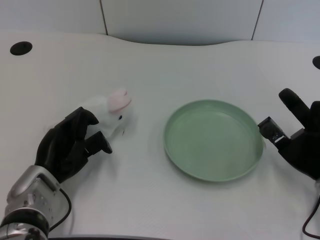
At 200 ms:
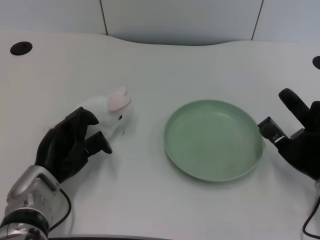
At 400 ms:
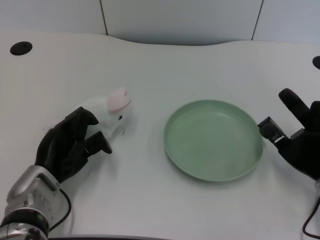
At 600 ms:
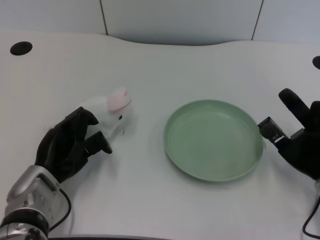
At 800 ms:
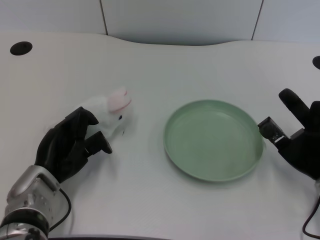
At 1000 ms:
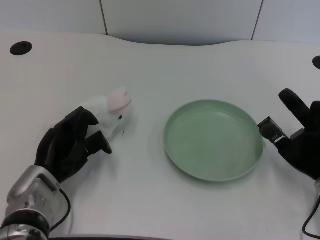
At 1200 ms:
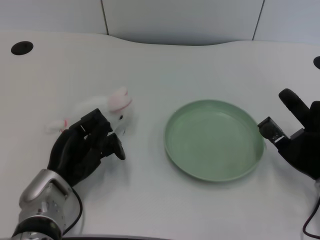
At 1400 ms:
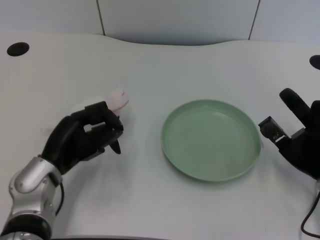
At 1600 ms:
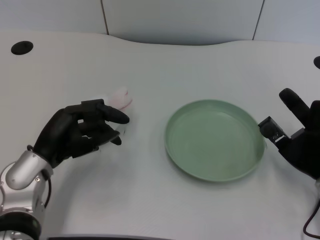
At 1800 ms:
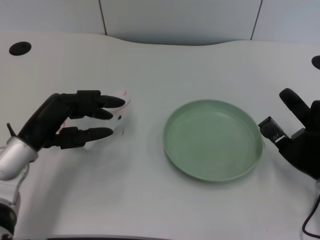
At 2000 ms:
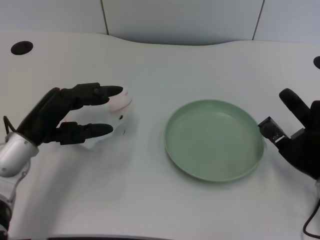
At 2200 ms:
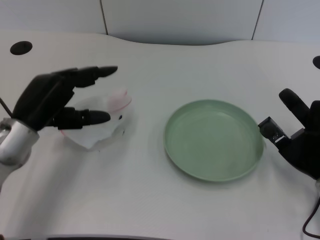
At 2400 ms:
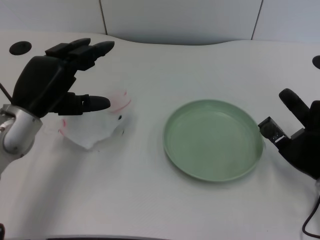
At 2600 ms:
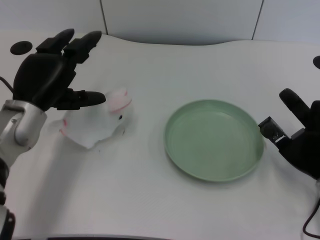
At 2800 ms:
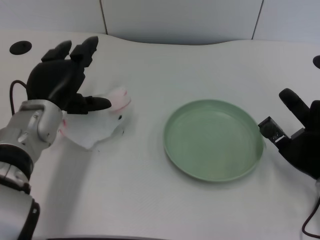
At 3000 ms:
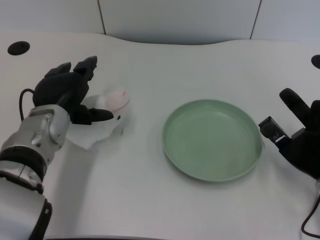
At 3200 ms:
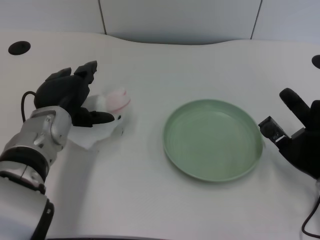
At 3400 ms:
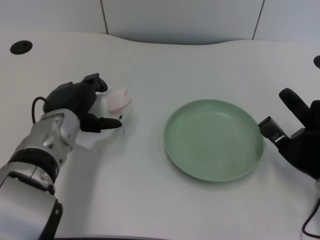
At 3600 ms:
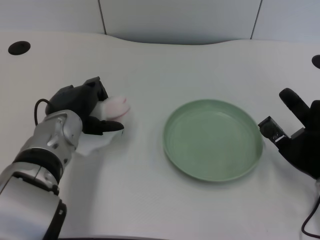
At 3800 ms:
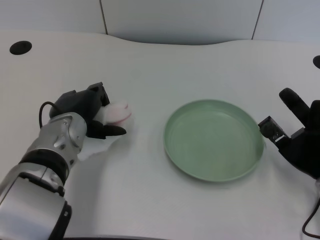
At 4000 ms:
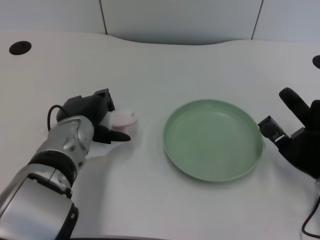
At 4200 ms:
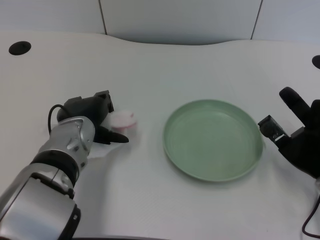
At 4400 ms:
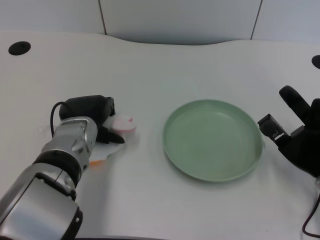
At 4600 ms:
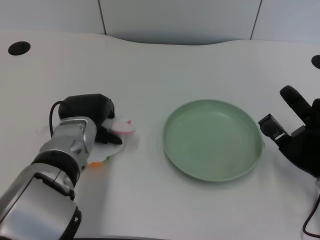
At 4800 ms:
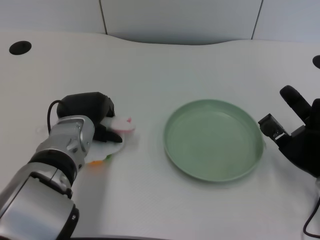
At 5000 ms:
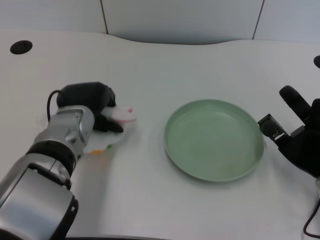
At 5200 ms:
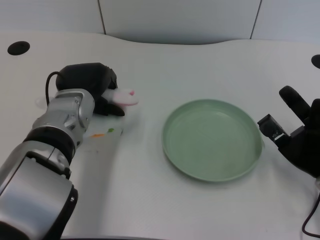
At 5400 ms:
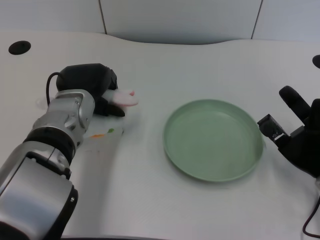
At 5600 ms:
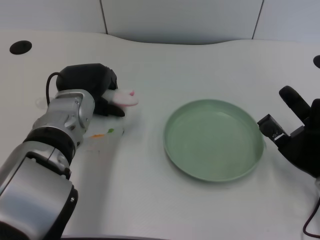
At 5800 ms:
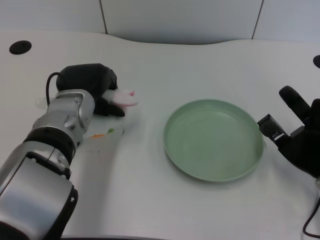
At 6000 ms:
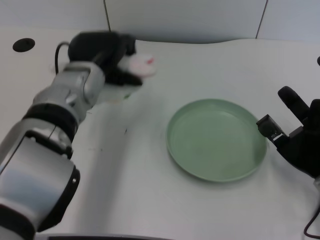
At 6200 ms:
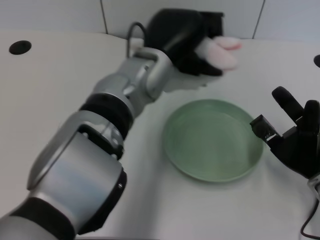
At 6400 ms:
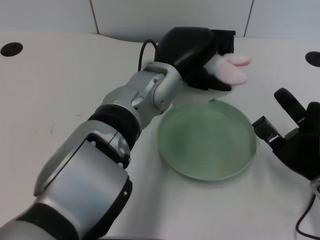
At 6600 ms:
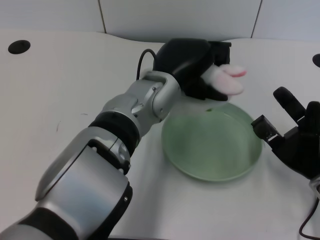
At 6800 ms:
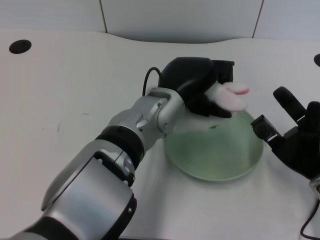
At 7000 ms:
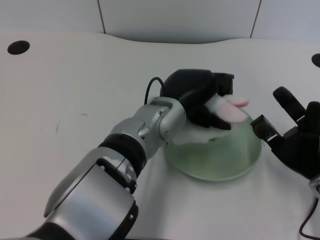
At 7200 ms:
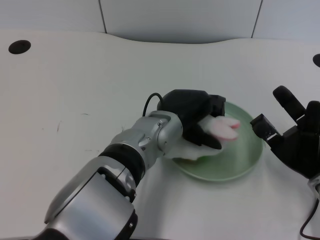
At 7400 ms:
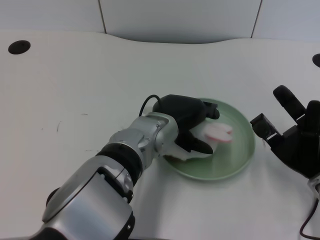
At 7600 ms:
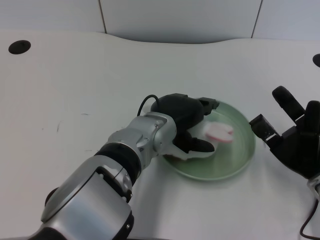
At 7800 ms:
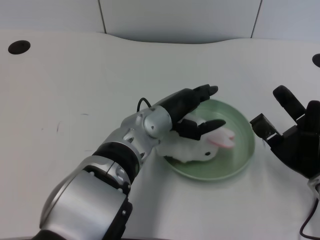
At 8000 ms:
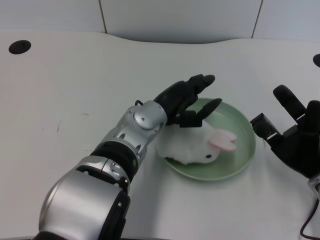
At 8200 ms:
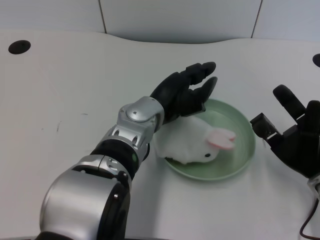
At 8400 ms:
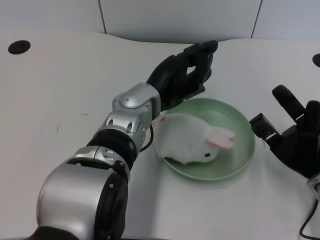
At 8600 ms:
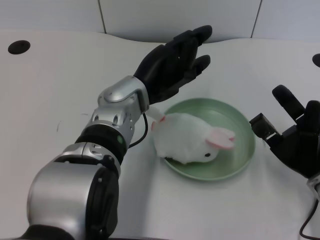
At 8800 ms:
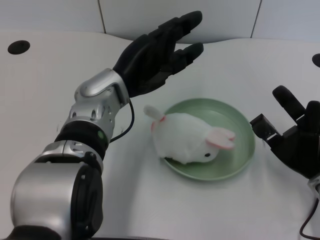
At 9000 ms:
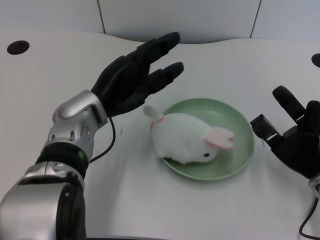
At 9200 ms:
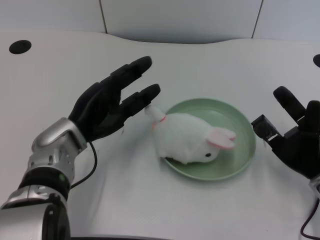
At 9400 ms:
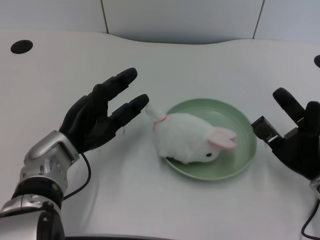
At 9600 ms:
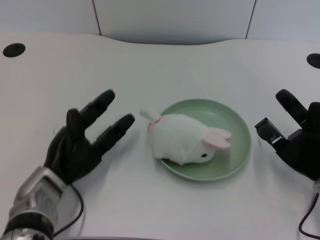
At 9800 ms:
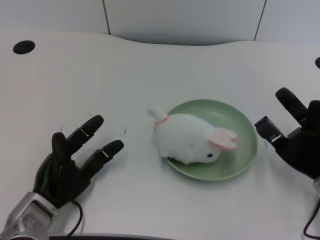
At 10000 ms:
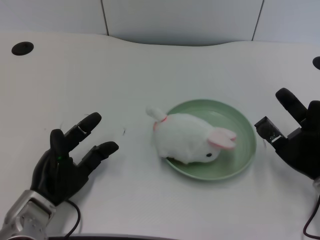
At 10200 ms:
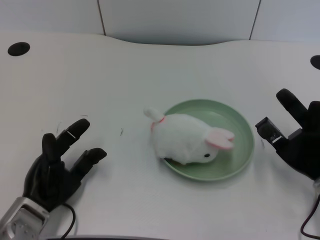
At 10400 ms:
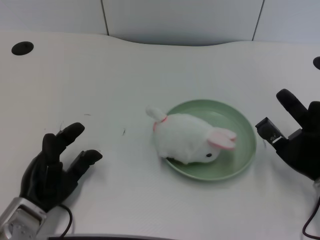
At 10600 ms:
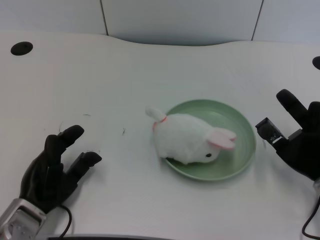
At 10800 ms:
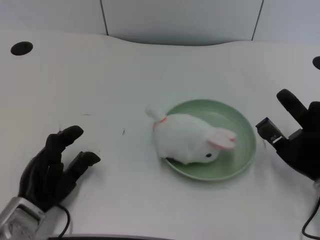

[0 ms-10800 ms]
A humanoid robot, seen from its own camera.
Task of the whole recording: pick up the rabbit doll from the table and place it on the plate.
Step, 1400 ms to 4800 ms: Grasp the rabbit doll with the left gripper.
Step, 5000 ms to 7800 ms: Place the rabbit doll into the plate with the left gripper.
1600 ms to 3000 ms: The left hand goes roughly 5 cm forward.
3000 ms to 4600 ms: The hands move only a little.
4600 ms to 6200 ms: The left hand shifts some 15 cm to the right and upward.
6200 ms to 7800 ms: The left hand travels downward by roughly 5 cm.
7800 ms to 9200 ms: The left hand goes approximately 15 cm to the left.
9200 ms to 10800 ms: The left hand is displaced backward, downward and to the left by some 15 cm.

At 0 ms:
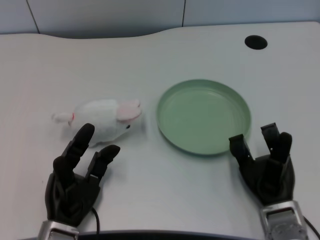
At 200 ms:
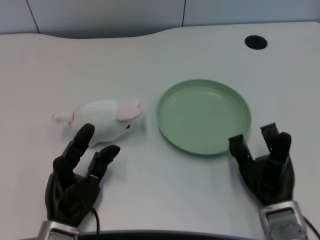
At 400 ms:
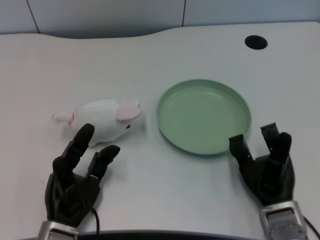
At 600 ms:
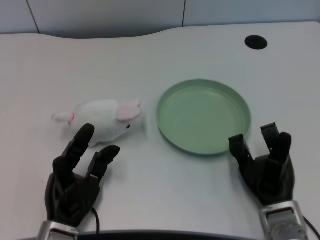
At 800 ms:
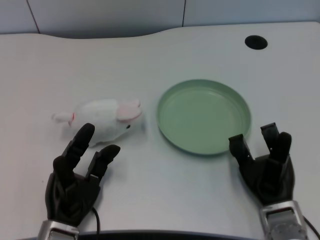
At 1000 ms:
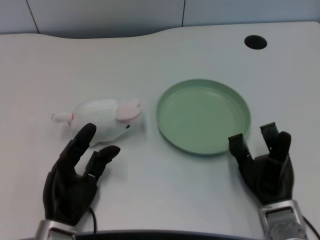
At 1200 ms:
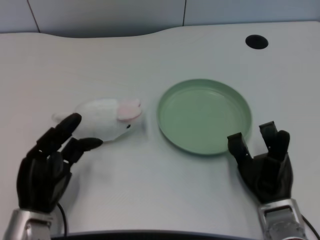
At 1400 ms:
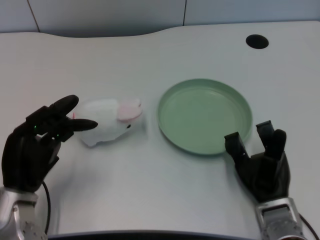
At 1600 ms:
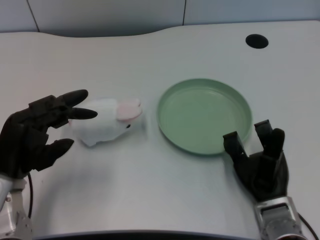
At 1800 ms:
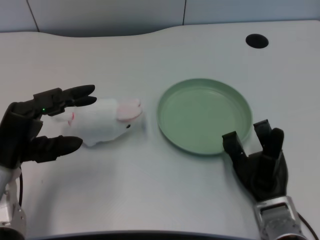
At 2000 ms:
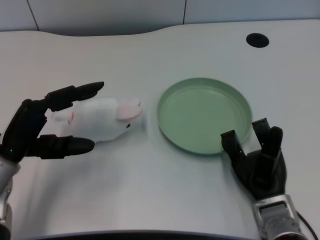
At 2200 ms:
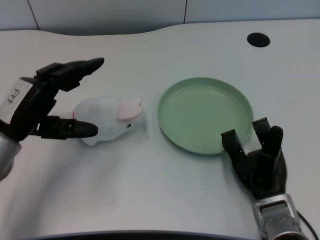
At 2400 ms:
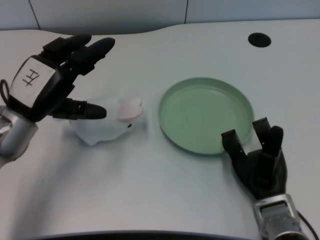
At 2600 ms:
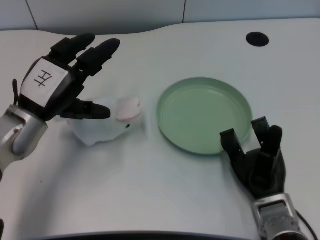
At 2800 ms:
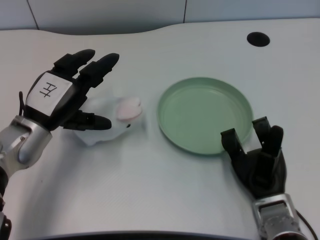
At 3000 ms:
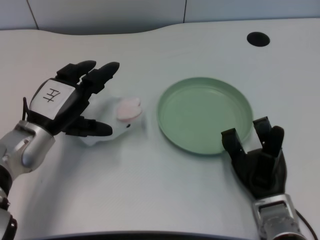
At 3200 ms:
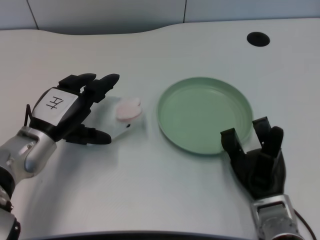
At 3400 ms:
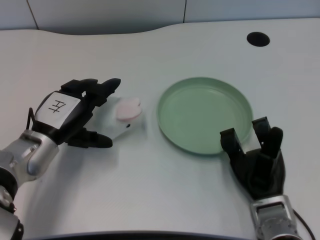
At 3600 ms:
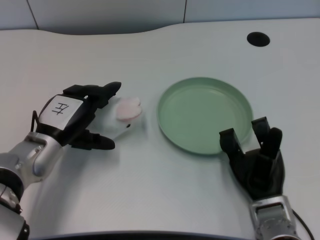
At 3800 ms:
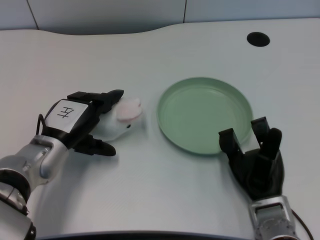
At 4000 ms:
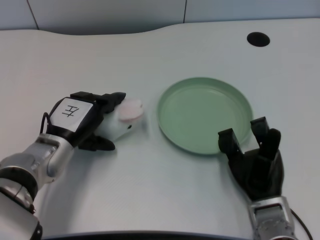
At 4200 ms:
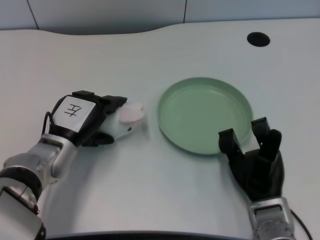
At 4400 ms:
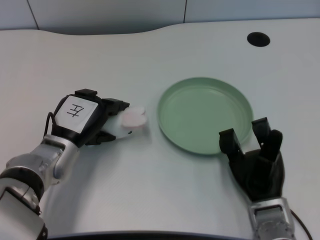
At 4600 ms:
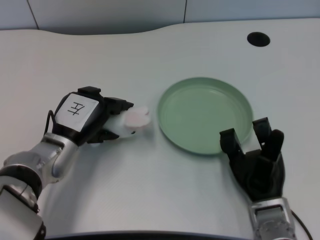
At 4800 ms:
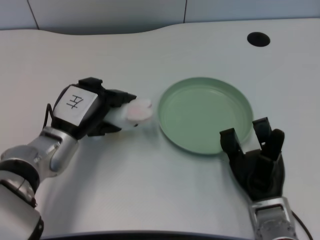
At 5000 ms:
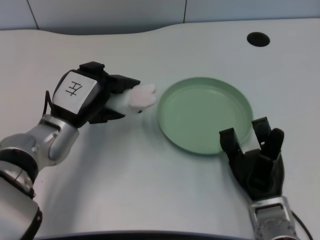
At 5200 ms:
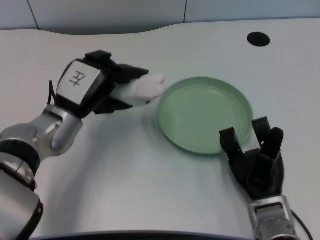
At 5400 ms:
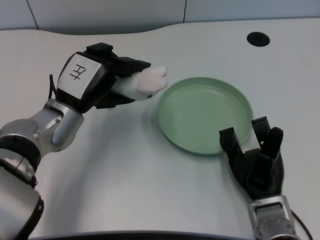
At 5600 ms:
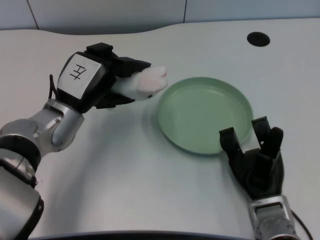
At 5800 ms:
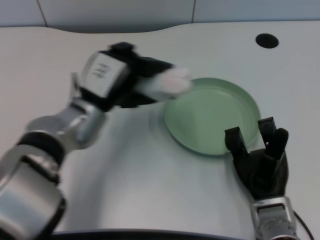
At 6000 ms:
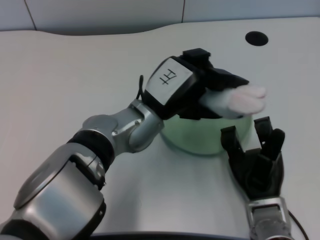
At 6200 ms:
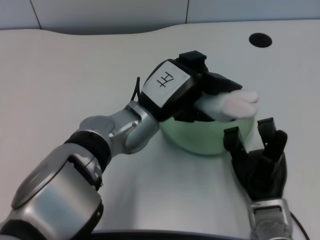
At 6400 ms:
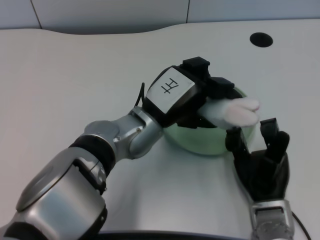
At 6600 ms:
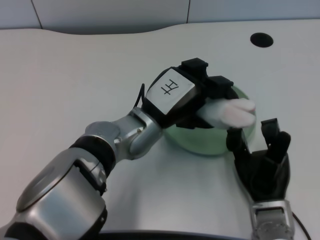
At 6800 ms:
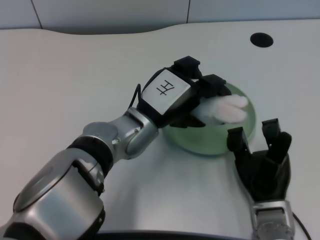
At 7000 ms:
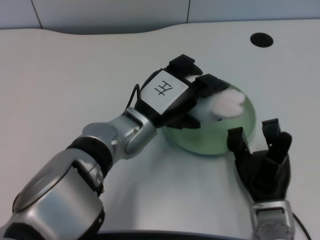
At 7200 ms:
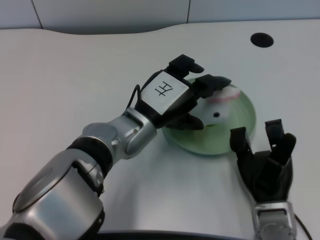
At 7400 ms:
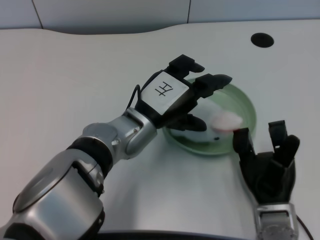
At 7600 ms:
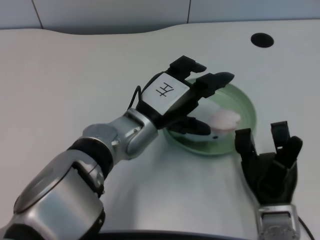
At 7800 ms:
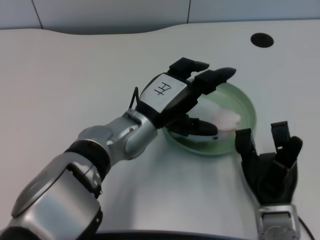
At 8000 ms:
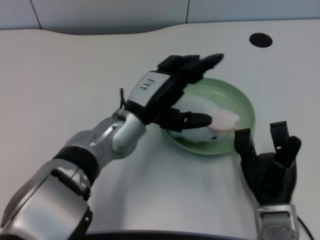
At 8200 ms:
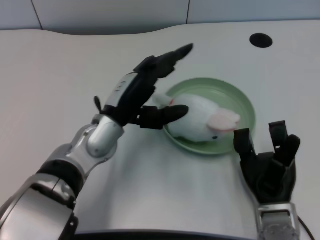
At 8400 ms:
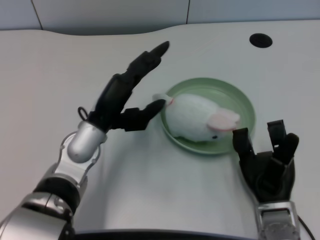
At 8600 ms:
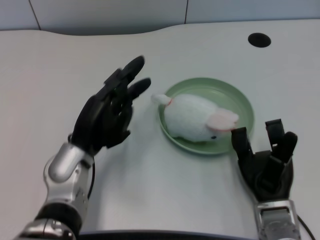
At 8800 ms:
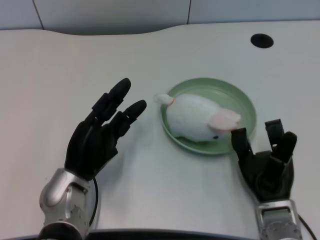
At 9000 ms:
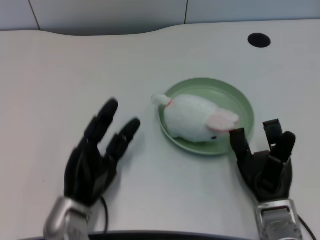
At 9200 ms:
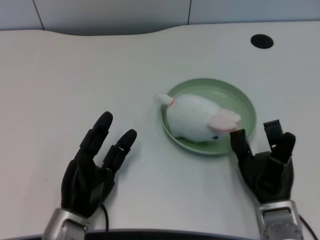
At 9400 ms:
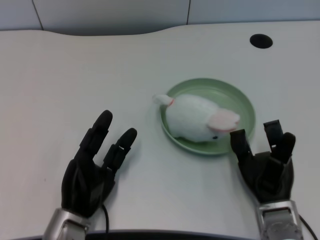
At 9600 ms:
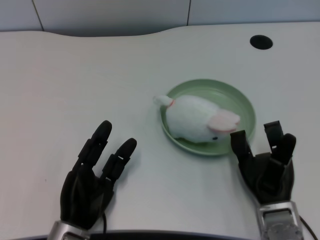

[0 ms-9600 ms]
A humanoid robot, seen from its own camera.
Task of the whole recording: pick up the rabbit doll from the table and place it on the plate.
Step, 1000 ms to 4600 ms: Grasp the rabbit doll with the left gripper.
Step, 5000 ms to 7200 ms: Place the rabbit doll into the plate with the left gripper.
1600 ms to 3200 ms: The left hand goes approximately 5 cm forward.
3200 ms to 4800 ms: The hands move only a little.
4800 ms to 6400 ms: The left hand heads to the right, covering roughly 15 cm.
8000 ms to 9600 ms: The left hand goes about 20 cm downward, backward and to the left.
